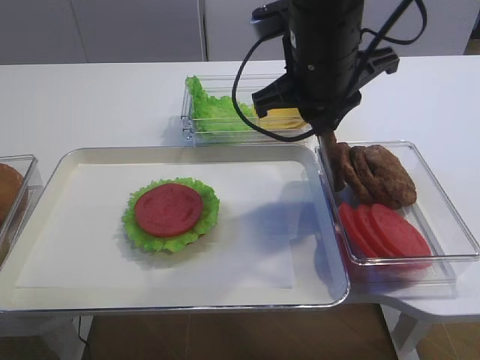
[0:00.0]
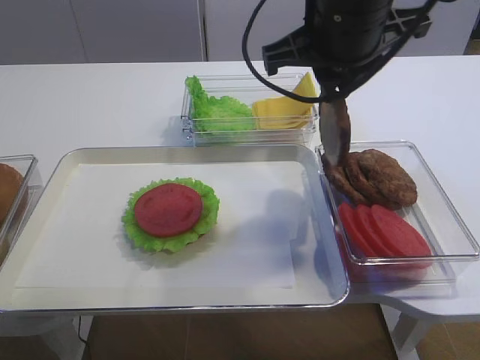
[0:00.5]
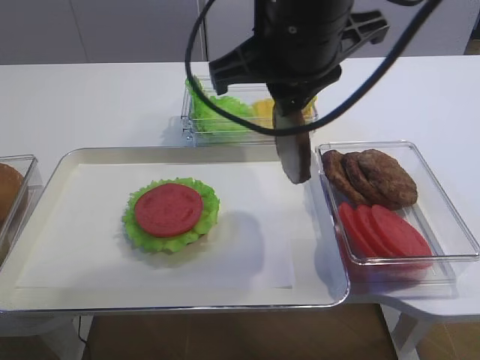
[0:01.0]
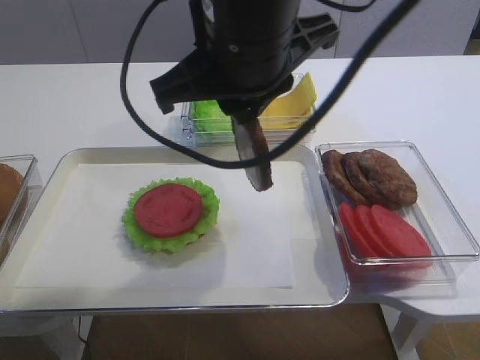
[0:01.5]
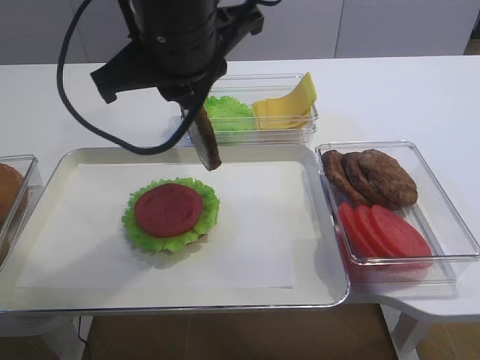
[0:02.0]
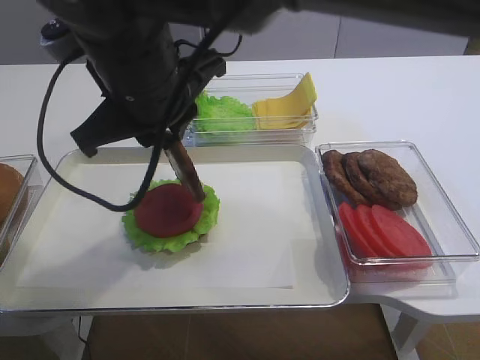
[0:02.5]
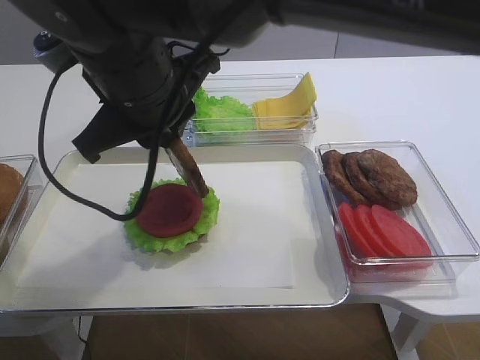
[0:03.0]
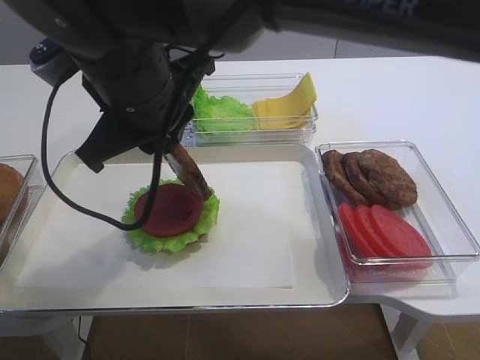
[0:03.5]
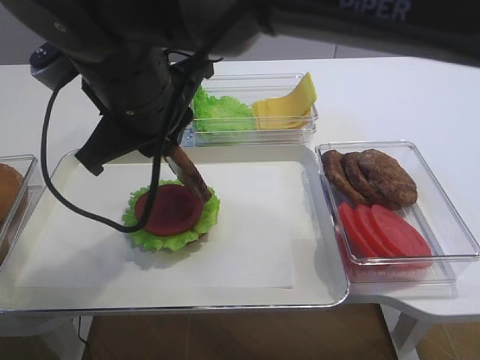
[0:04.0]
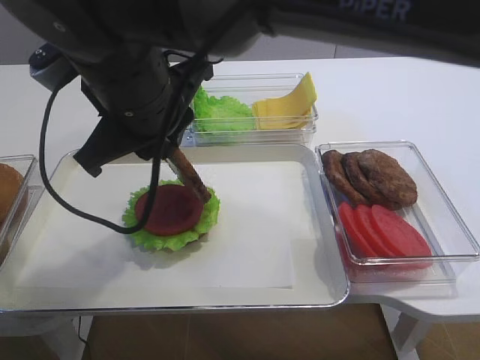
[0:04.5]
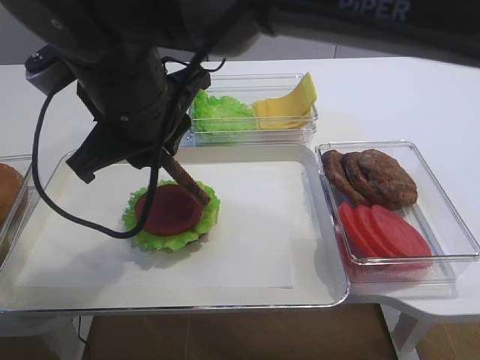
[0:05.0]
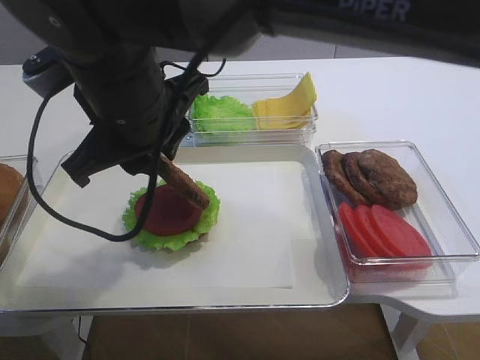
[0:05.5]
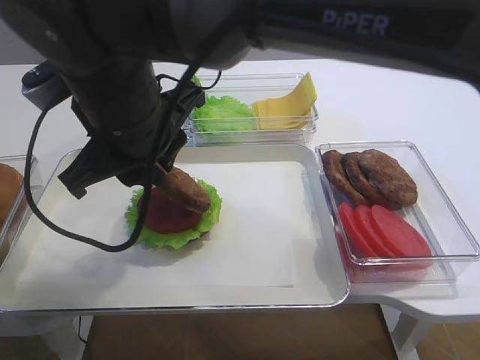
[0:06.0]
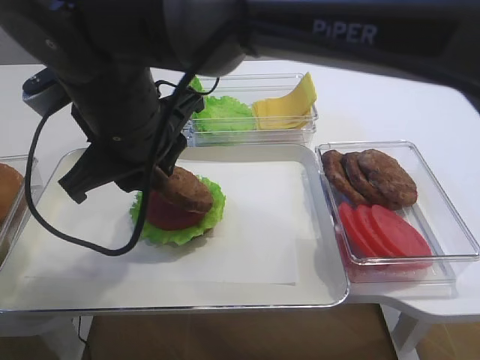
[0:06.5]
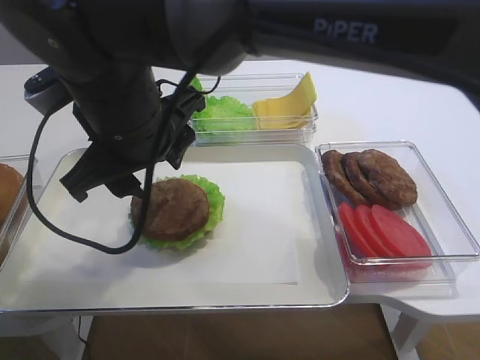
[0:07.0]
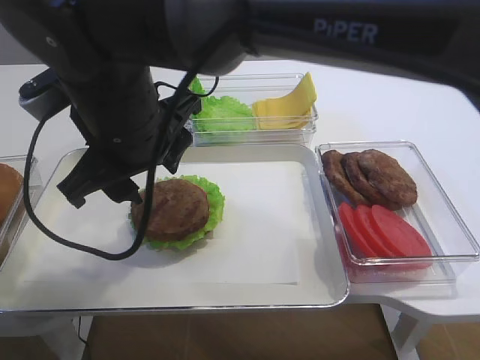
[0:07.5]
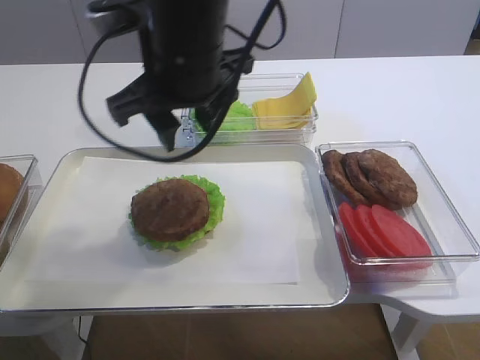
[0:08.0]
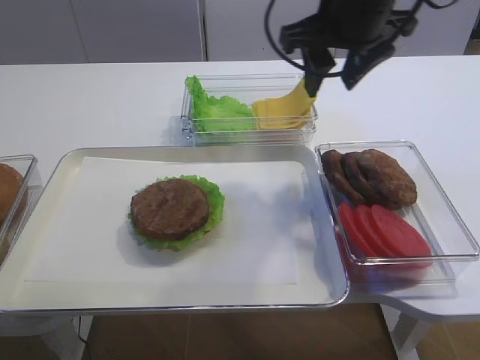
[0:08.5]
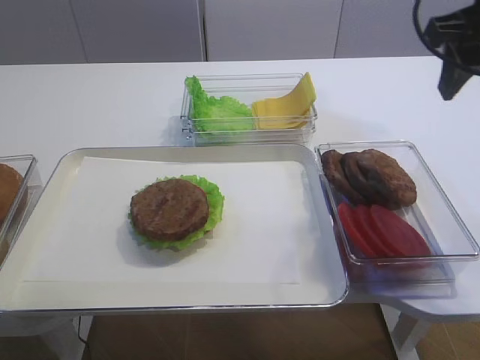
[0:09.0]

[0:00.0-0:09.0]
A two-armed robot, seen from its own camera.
Step, 0:00.5 to 0:07.5: Place the cutlet on the tomato slice with the right gripper.
0:00.0 to 0:02.0: The right gripper is displaced to the left, backward and upward by roughly 15 cm.
0:02.0 to 0:04.5: The right gripper goes roughly 5 cm downward.
0:04.5 to 0:07.0: The right gripper opens.
0:07.0 to 0:09.0: The right gripper is displaced to the right by approximately 30 cm.

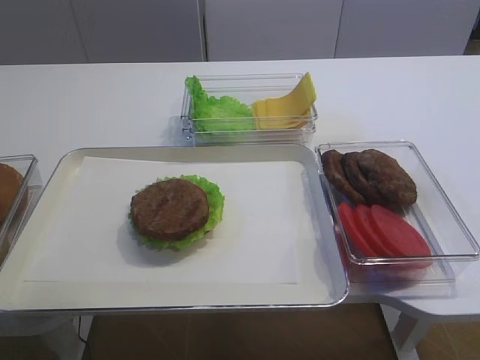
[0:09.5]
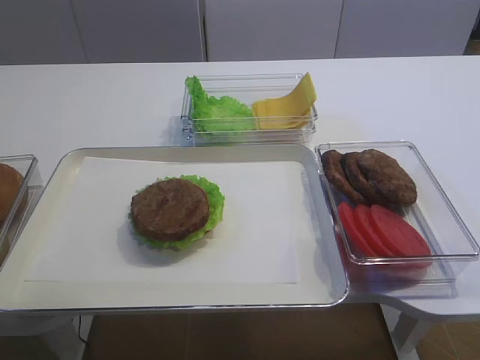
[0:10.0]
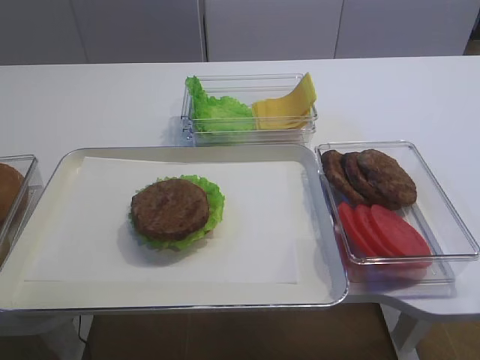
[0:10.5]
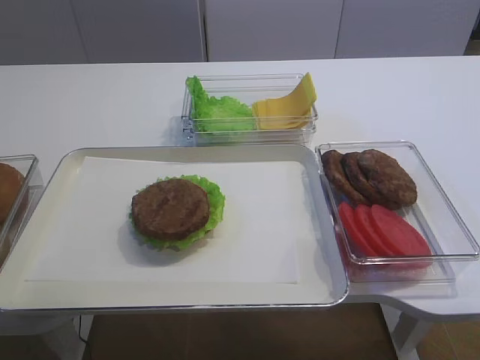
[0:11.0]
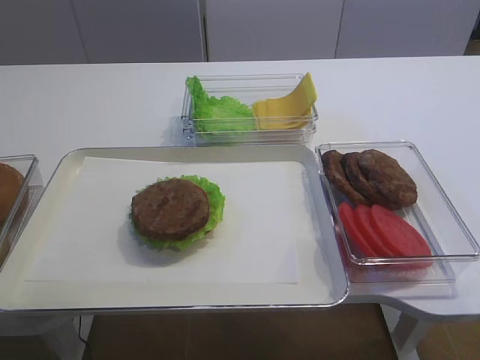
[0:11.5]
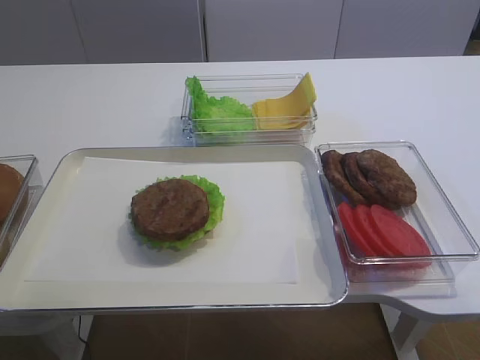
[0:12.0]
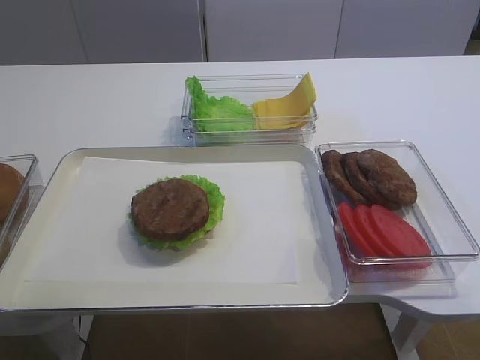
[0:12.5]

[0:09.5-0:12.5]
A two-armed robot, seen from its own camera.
0:09.5 to 0:11.0: The right gripper travels backward and downward by about 20 cm.

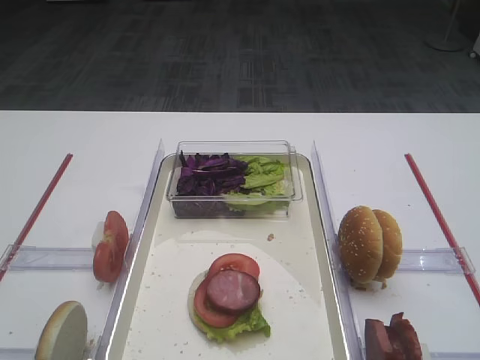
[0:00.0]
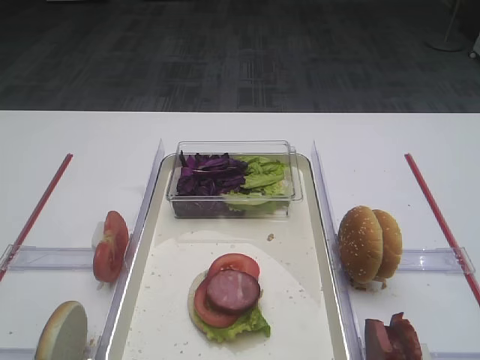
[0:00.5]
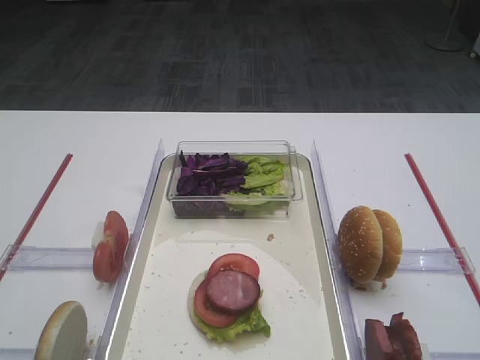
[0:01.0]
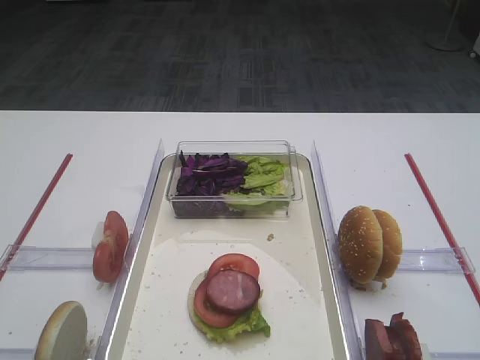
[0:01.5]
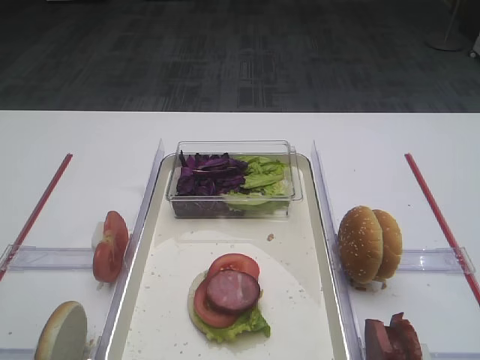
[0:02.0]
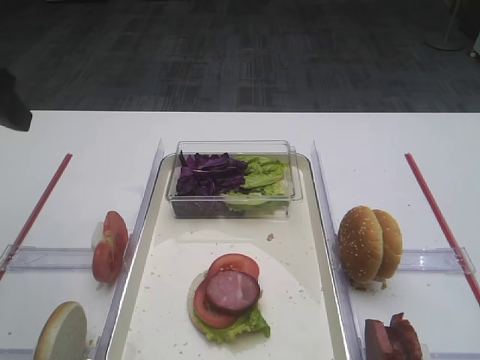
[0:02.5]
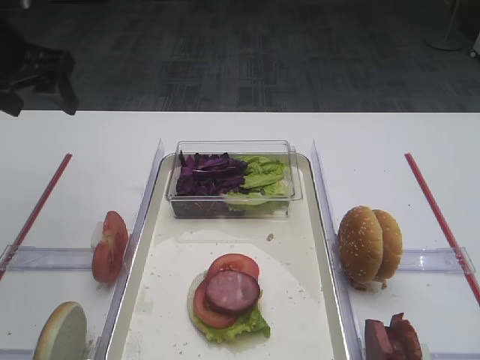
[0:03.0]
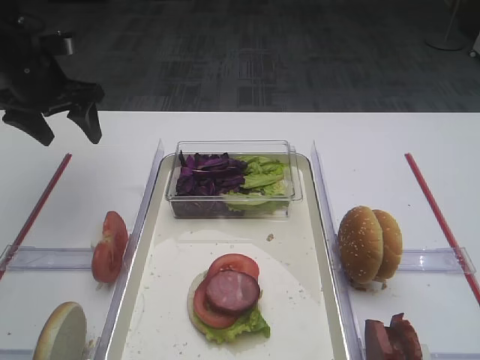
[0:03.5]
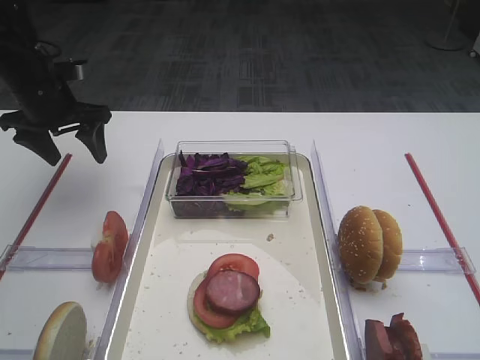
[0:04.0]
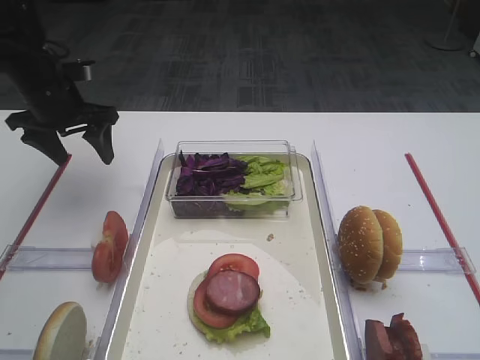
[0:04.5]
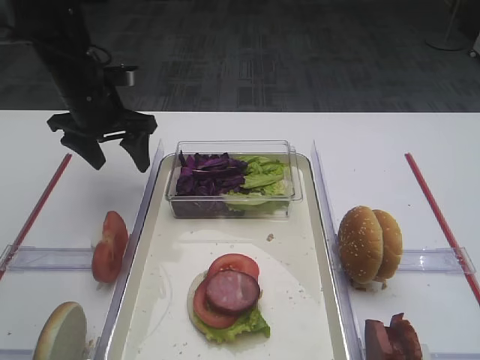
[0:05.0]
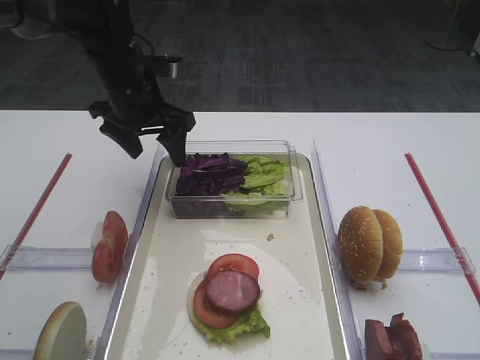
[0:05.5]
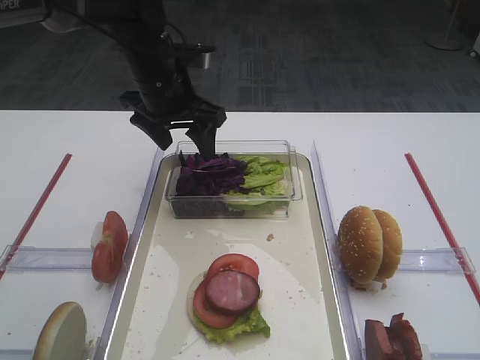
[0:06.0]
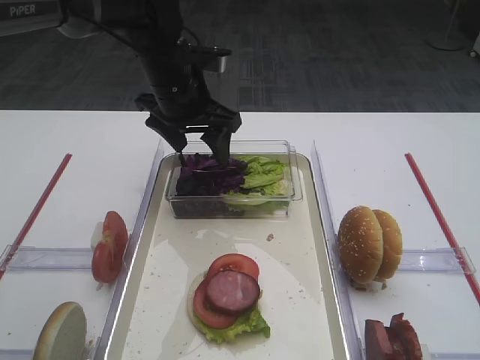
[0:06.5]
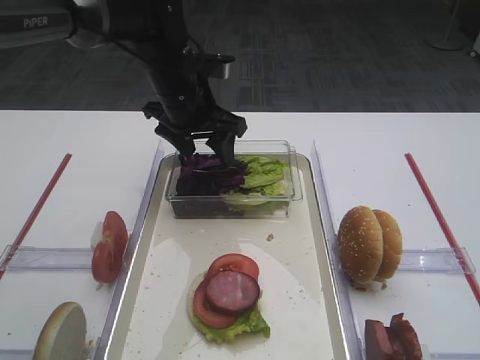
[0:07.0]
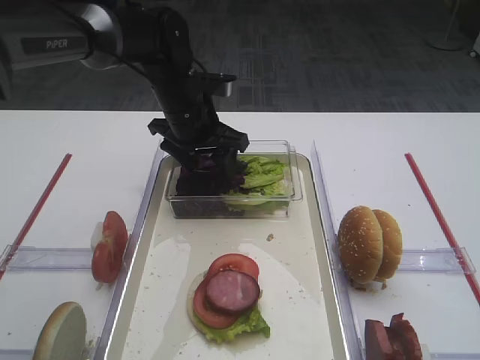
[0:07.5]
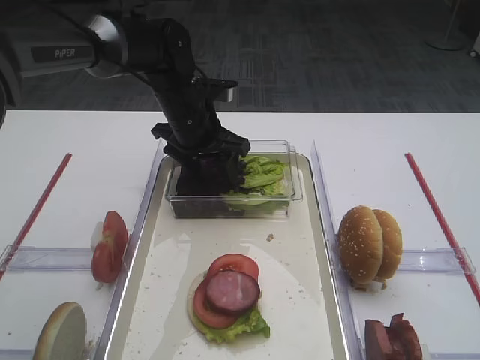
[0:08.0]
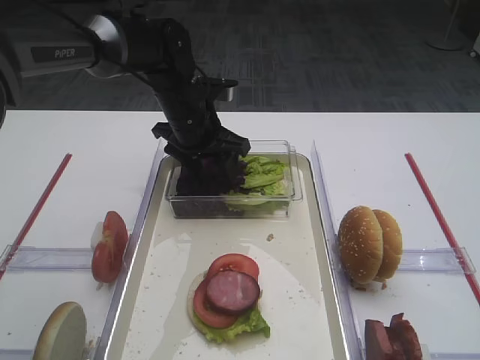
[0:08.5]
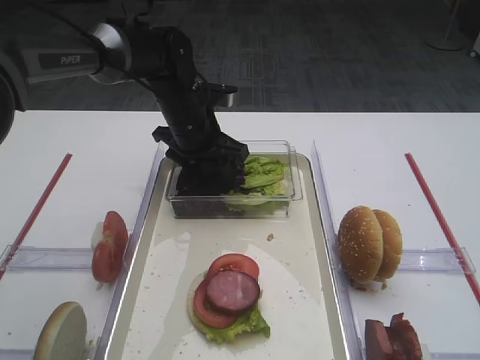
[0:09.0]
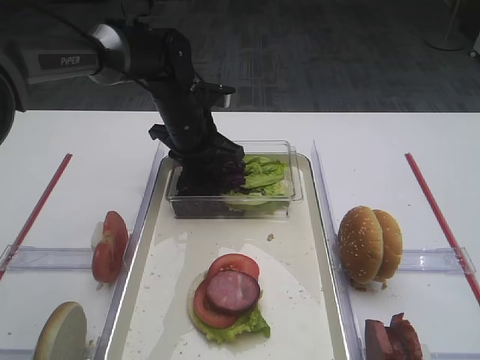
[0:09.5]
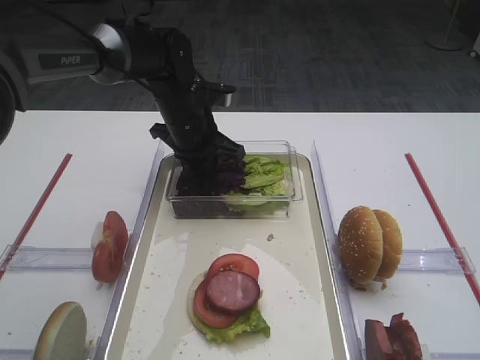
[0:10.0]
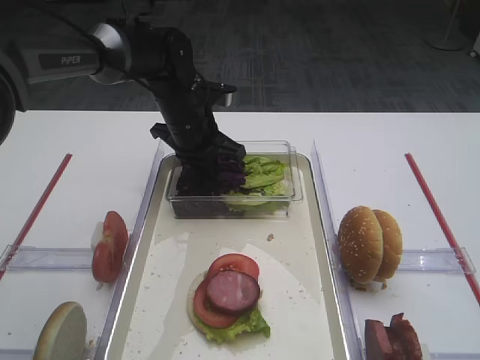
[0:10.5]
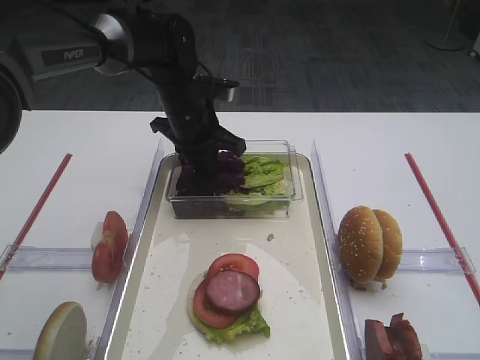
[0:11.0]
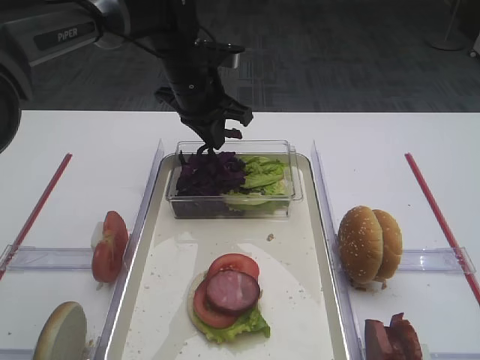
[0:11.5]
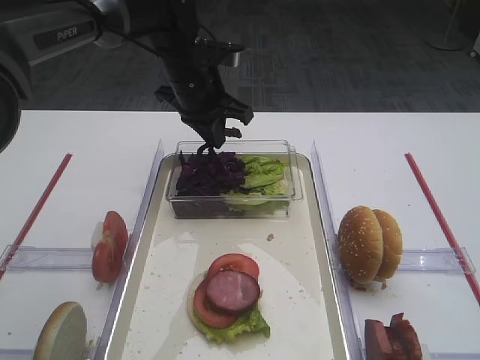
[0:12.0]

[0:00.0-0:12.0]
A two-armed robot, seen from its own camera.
0:02.0 to 0:04.0: The left gripper heads forward, covering about 35 cm.
0:04.0 to 0:06.0: The left gripper goes approximately 15 cm to the right.
0:06.0 to 0:08.0: The left gripper travels downward by some 5 cm.
0:08.0 to 0:10.0: The left gripper closes.
0:10.0 to 0:12.0: The left gripper moves upward, approximately 5 cm.

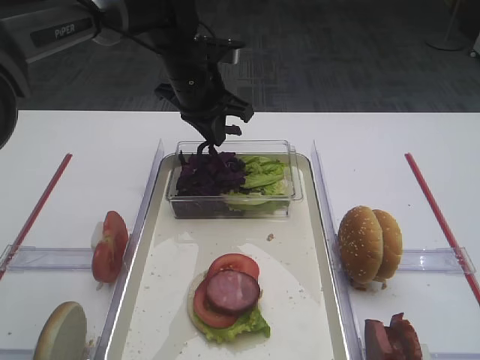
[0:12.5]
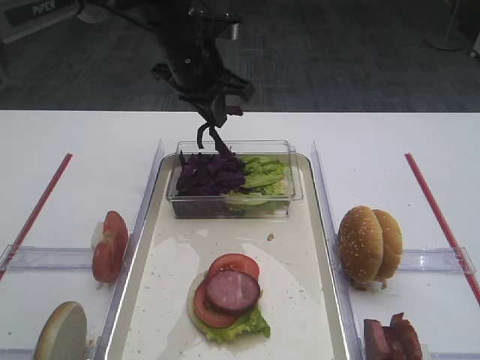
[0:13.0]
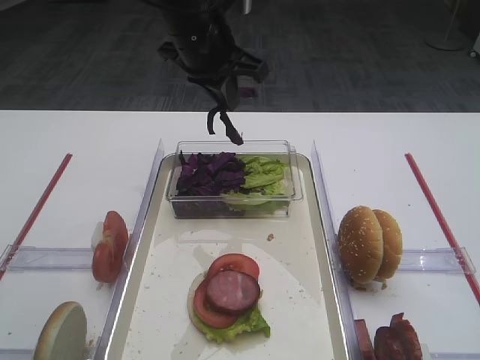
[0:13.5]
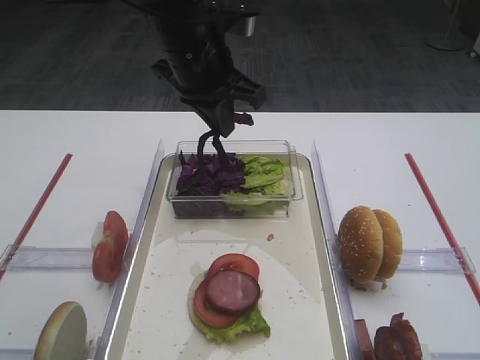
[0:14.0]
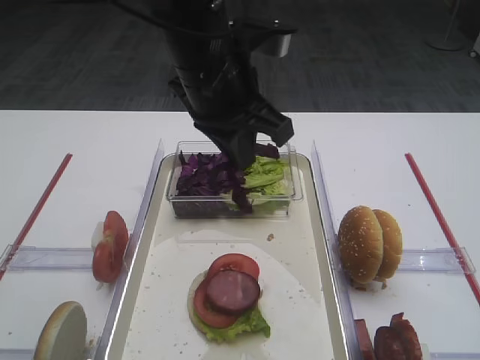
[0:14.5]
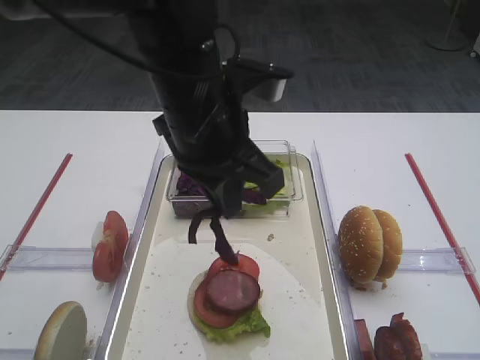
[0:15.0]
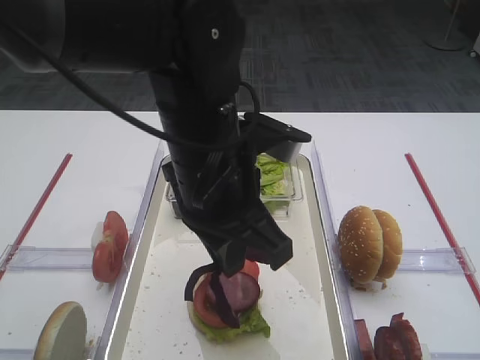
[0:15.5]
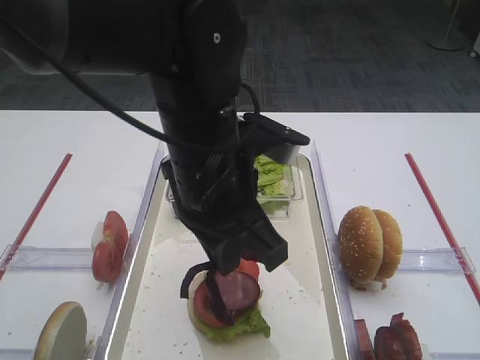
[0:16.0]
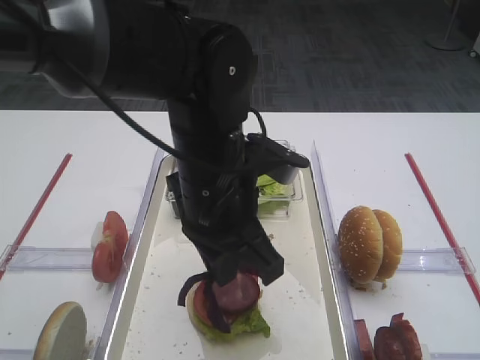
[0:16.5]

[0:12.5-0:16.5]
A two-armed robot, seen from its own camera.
0:12.5 to 0:14.5: The left gripper heads backward and upward, covering approximately 15 cm.
0:14.5 to 0:16.5: The left gripper travels downward and backward by some 10 cm.
